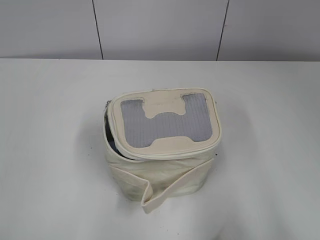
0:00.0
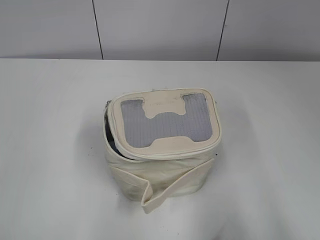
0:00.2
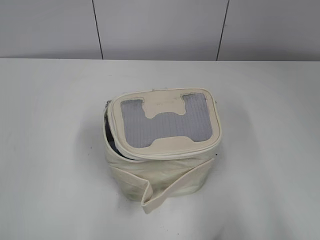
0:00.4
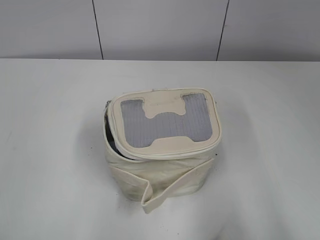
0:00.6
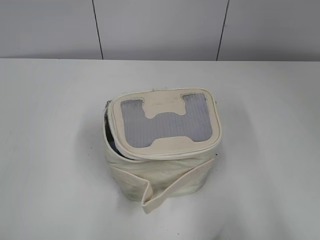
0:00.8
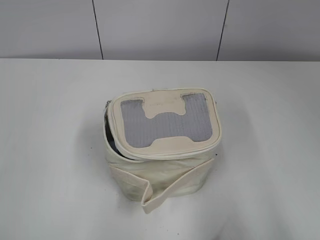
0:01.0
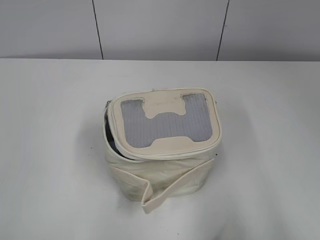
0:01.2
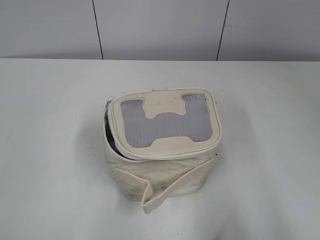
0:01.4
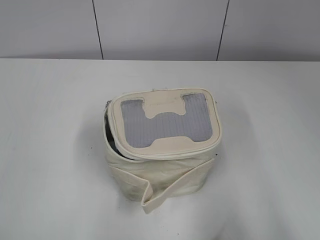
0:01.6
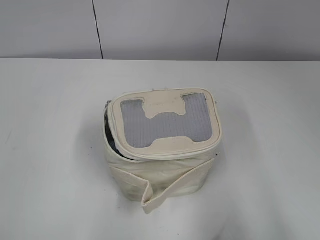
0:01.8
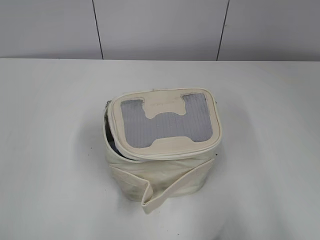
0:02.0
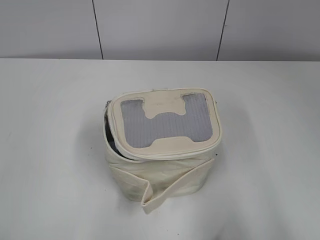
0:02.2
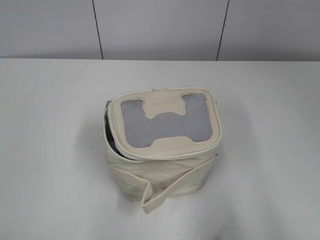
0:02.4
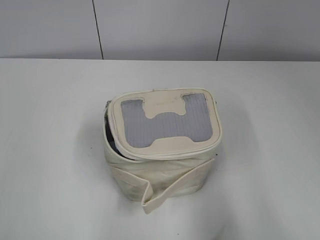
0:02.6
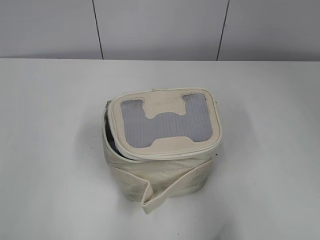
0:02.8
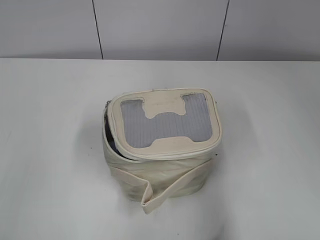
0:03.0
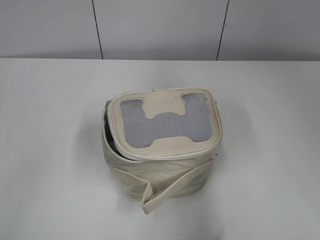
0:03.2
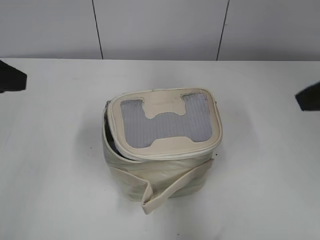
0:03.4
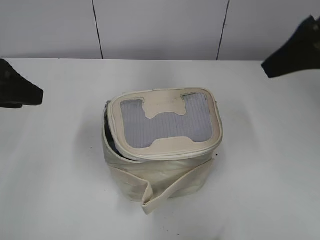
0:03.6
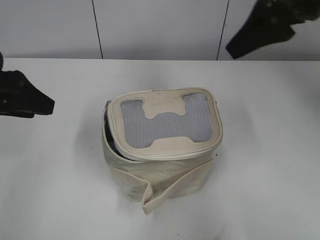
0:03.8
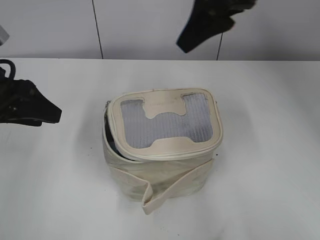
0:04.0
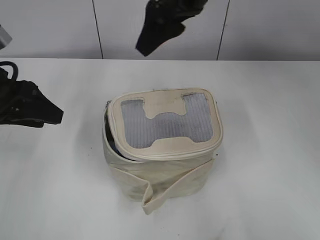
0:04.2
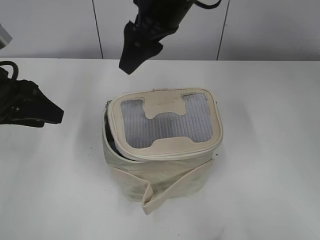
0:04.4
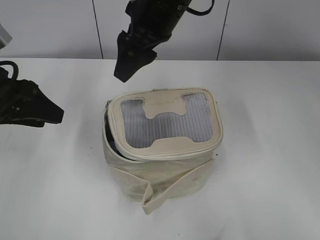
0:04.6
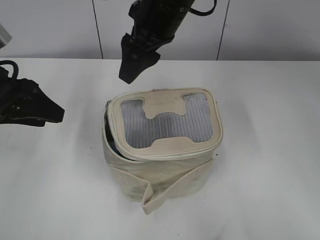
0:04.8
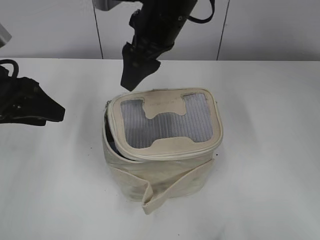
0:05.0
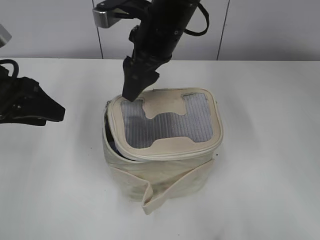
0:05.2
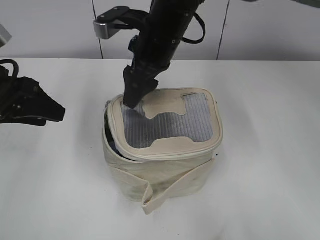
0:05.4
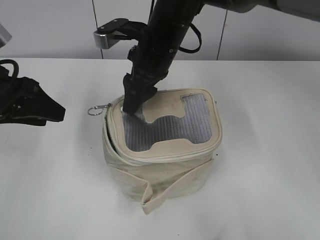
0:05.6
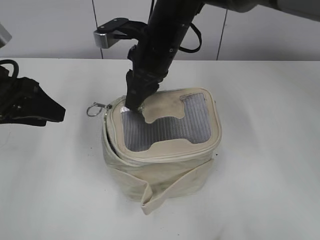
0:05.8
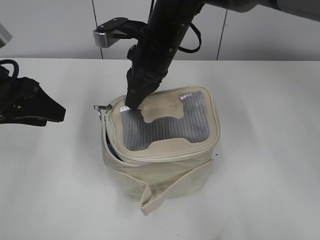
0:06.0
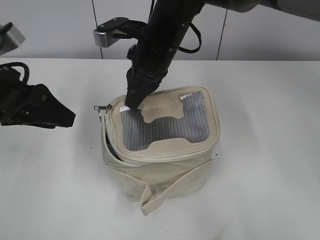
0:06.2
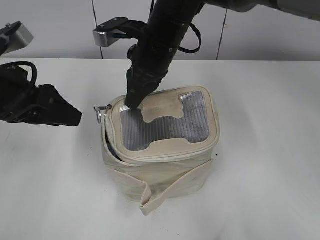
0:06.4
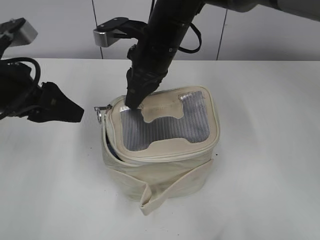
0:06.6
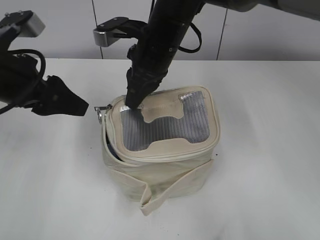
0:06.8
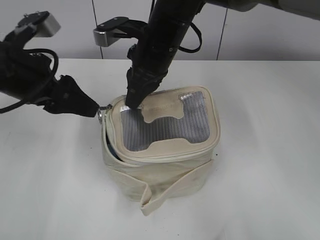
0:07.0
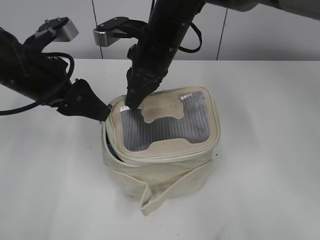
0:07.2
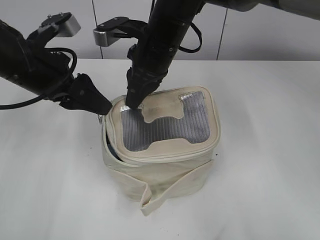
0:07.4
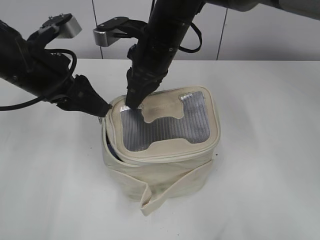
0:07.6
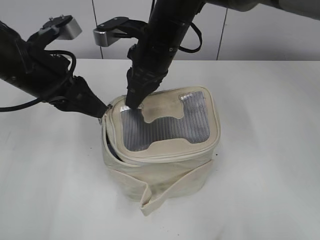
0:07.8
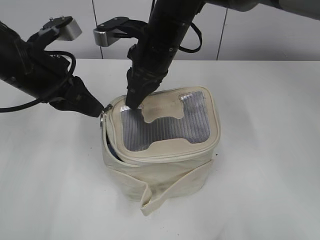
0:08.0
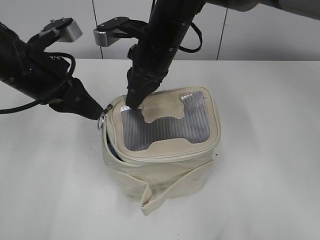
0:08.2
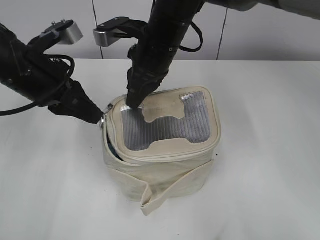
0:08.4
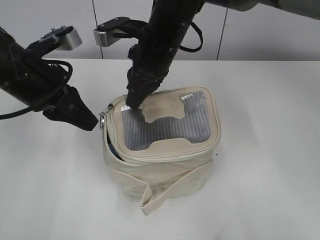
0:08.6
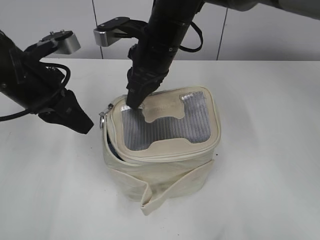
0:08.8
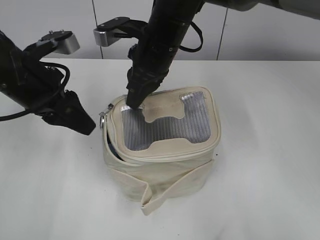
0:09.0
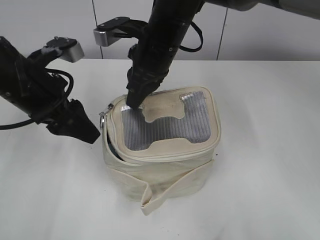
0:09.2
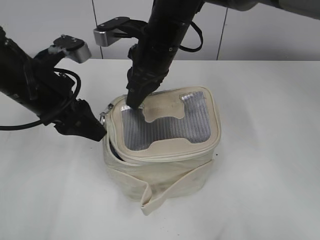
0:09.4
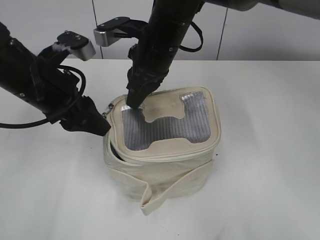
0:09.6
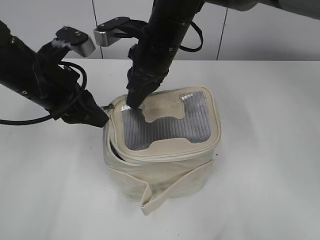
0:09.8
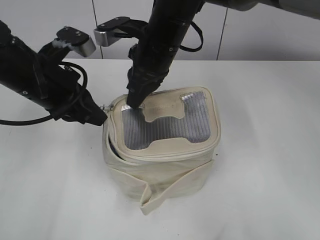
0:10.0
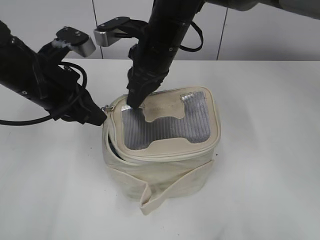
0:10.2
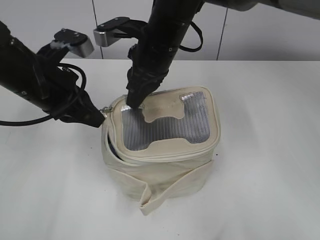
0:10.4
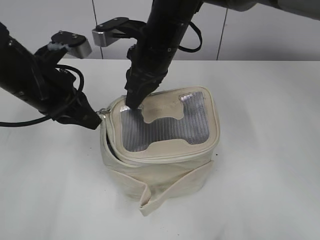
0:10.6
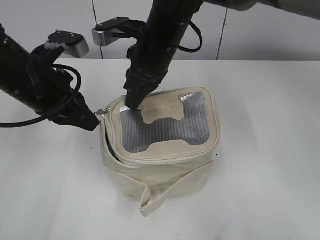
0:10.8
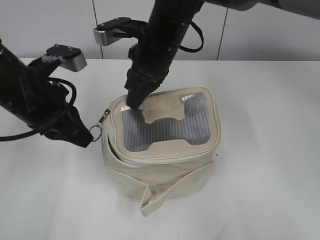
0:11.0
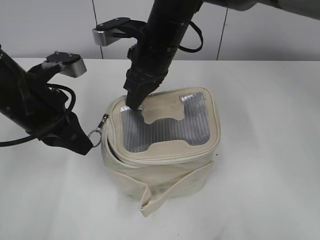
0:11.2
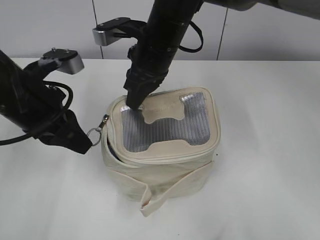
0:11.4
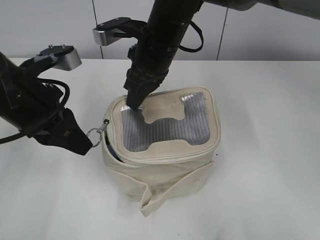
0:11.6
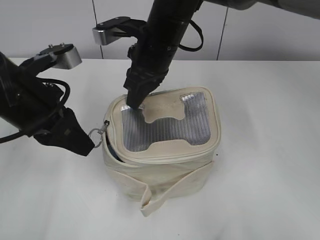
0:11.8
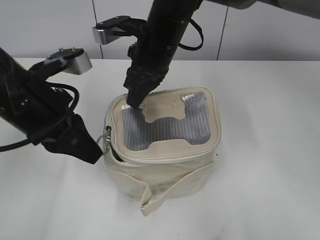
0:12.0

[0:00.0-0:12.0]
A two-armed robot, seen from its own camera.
0:01.6 to 0:03.0: The grippers both shift forward by some 10 cm.
0:03.0 to 0:04.4: The left gripper goes about 15 cm forward and downward. Meanwhile the right gripper is displaced forward and to the left by some 40 cm.
0:04.4 to 0:06.0: The right gripper travels downward by approximately 10 cm, and closes its fingers.
0:06.0 to 0:07.6: The left gripper heads to the right, covering some 5 cm.
0:07.6 to 0:09.0: The left gripper closes, then reopens.
0:09.0 to 0:10.4: The left gripper closes its fingers.
0:10.4 to 0:12.0: The left gripper ends up about 5 cm from where it was.

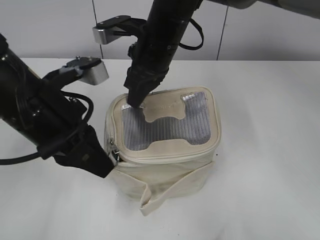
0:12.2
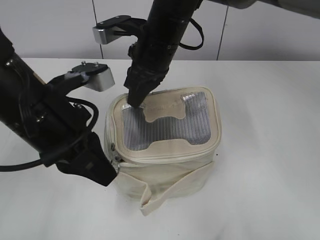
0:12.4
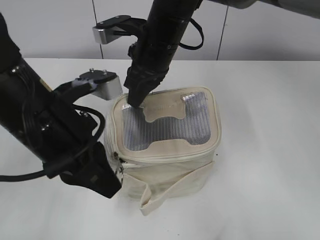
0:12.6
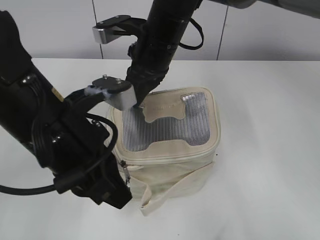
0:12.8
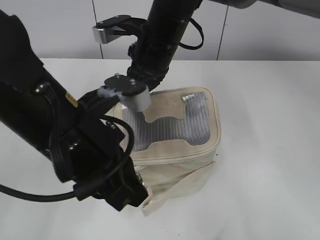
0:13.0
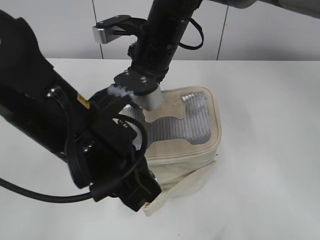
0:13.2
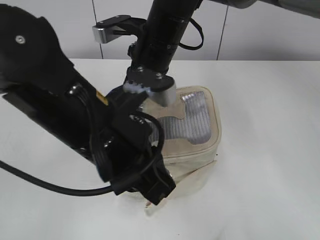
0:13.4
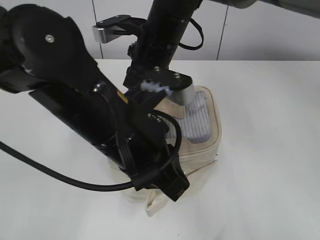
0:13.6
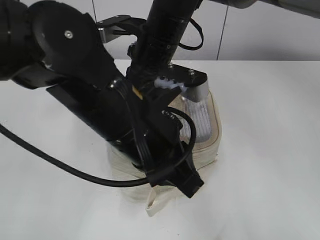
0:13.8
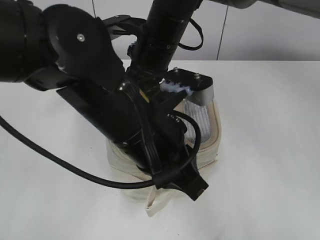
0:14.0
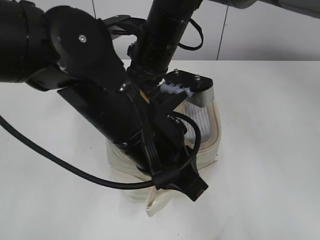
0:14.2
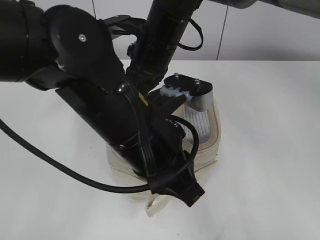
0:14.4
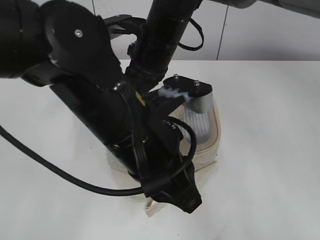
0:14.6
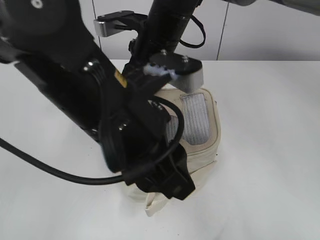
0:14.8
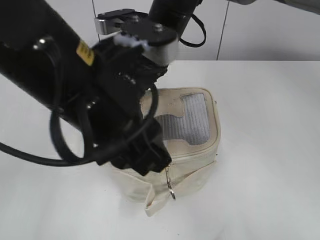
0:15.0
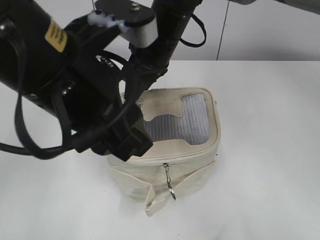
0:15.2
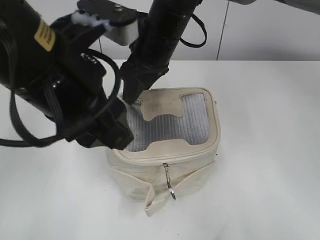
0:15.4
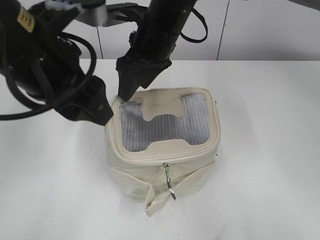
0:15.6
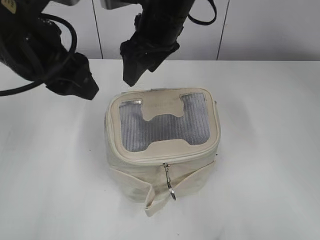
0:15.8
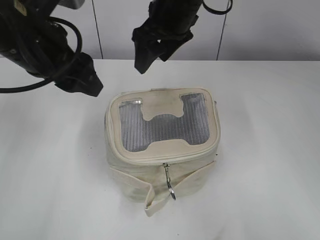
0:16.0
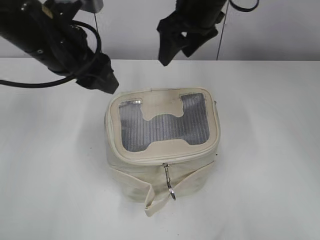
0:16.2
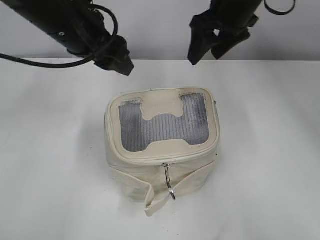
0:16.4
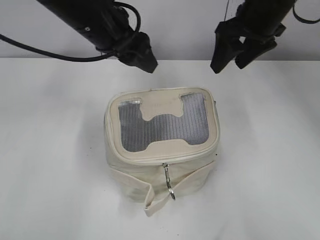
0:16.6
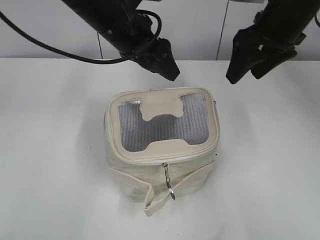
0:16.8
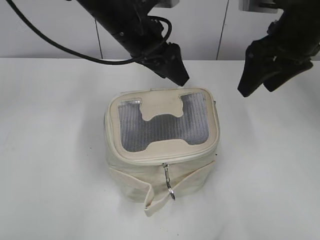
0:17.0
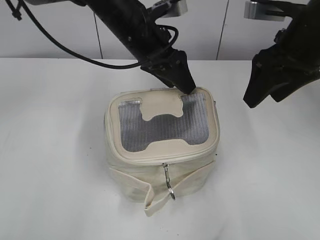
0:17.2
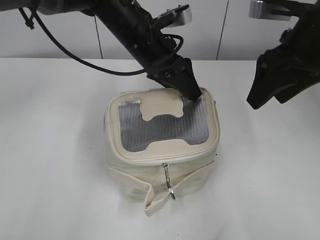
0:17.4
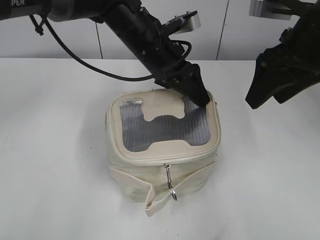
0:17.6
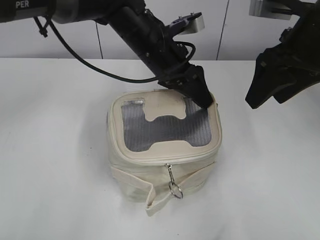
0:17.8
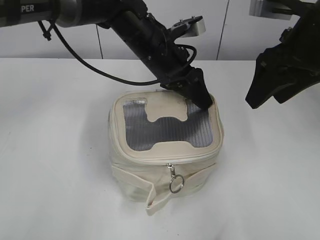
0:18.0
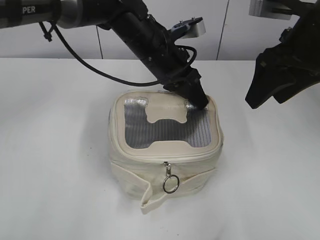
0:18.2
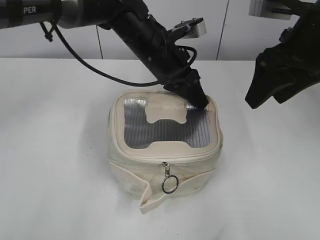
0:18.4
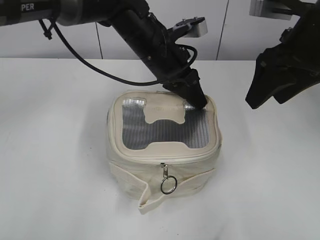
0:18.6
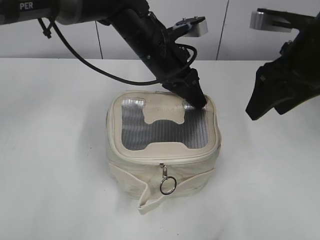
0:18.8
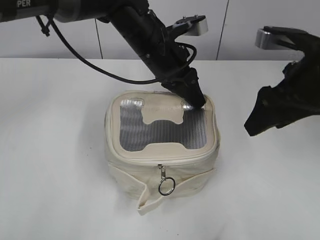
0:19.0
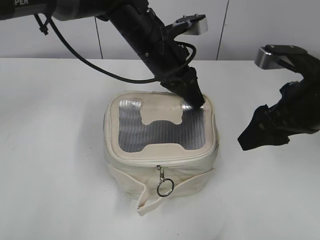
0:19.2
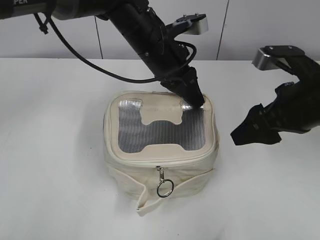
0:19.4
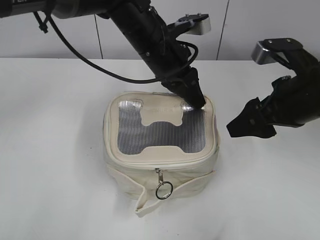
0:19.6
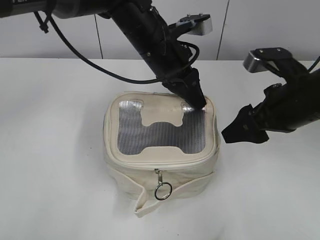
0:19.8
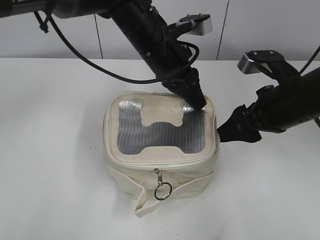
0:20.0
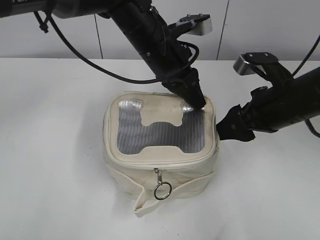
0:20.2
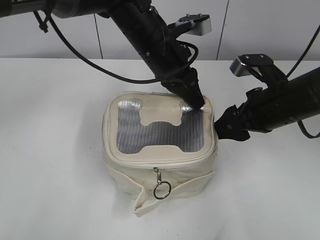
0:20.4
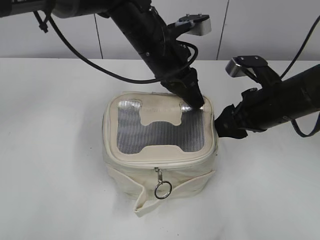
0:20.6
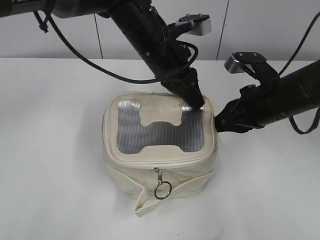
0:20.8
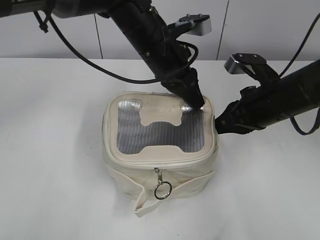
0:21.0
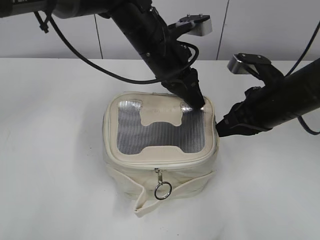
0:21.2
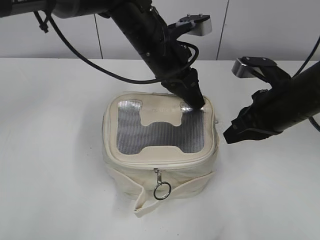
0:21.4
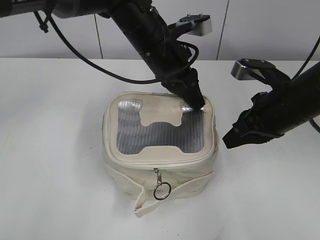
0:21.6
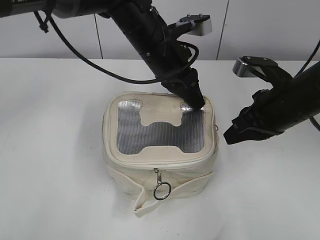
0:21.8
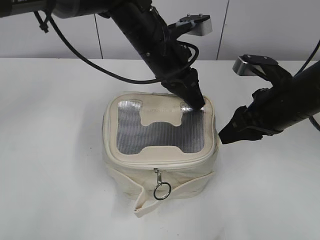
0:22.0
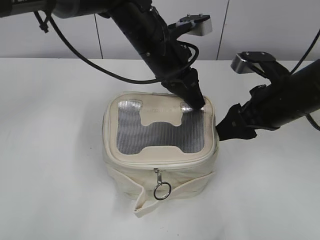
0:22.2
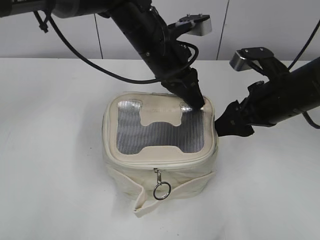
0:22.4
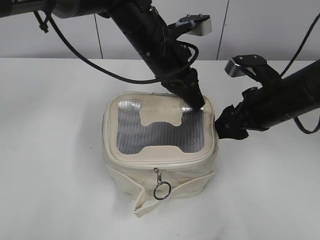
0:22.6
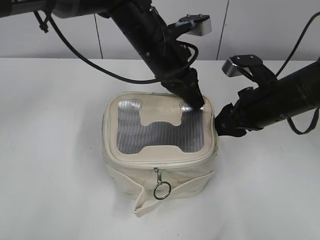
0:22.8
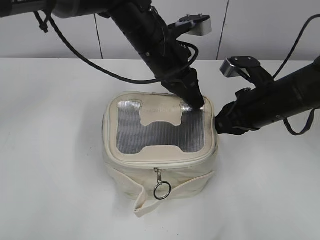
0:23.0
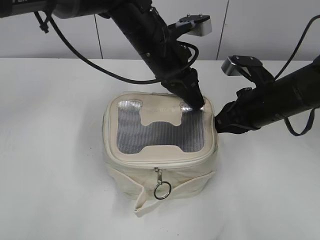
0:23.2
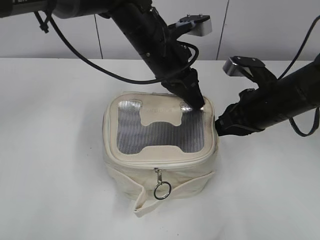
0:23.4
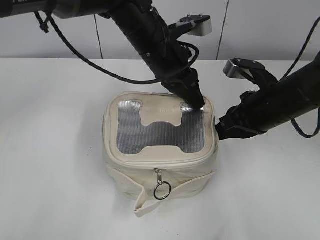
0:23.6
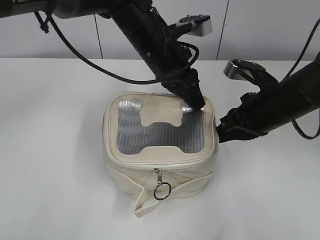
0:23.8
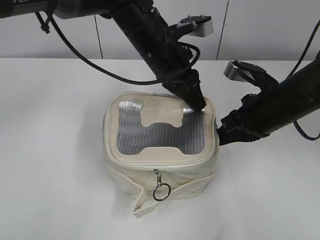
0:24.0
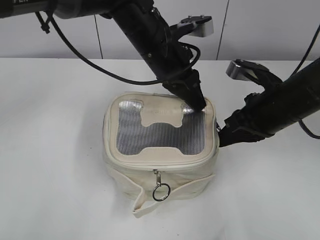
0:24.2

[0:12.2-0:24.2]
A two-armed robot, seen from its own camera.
Step, 0:12.2 to 0:14.6: Zip up the bag with your left hand.
0:12.2 to 0:13.8: The left gripper goes approximately 10 cm to the right.
0:13.8 to 0:15.2: The left gripper moves upward, some 5 cm, and opens up. The right gripper opens.
0:15.2 to 0:16.6: The left gripper heads forward, covering some 15 cm, while the right gripper goes about 15 cm to the right, and opens its fingers.
0:16.6 to 0:18.2: The left gripper travels to the right and downward by approximately 10 cm, and closes its fingers. Meanwhile the right gripper travels backward by some 10 cm.
0:18.2 to 0:19.8: The right gripper goes about 10 cm downward.
0:19.8 to 0:21.2: The right gripper closes up.
0:21.2 to 0:22.6: The right gripper opens up.
0:22.6 to 0:24.2: The right gripper closes.
